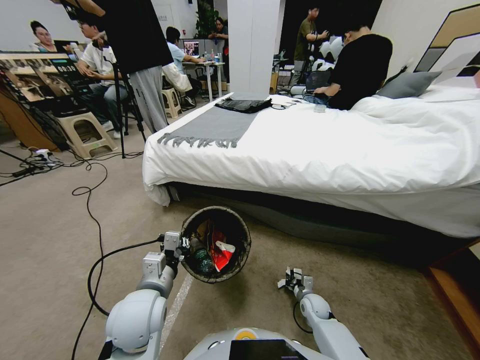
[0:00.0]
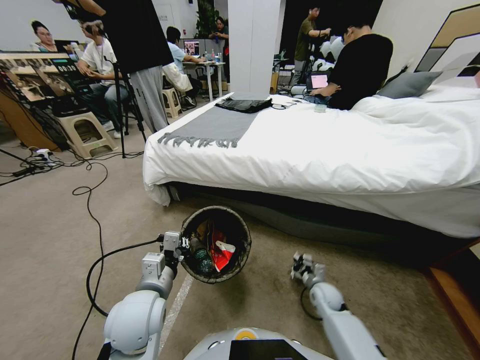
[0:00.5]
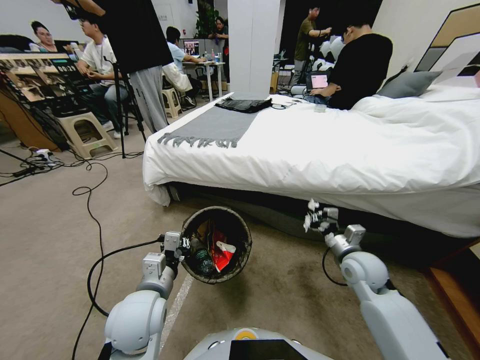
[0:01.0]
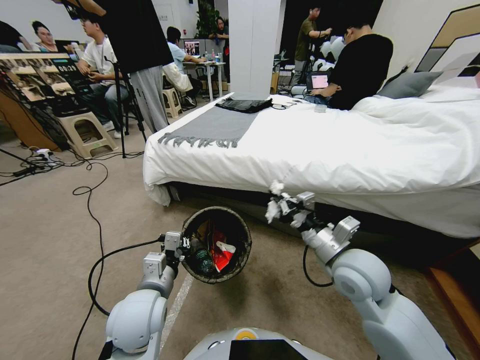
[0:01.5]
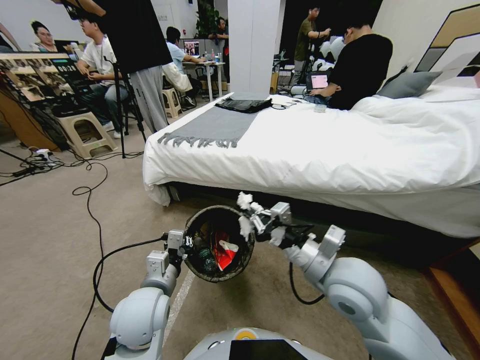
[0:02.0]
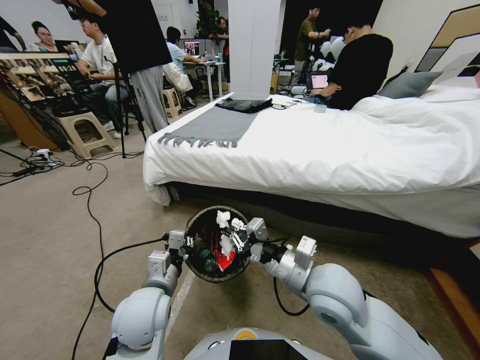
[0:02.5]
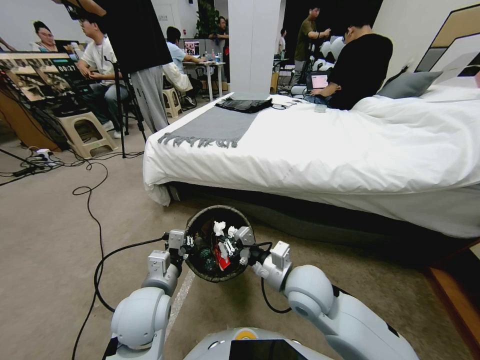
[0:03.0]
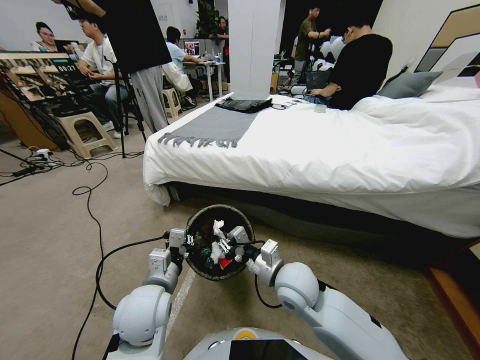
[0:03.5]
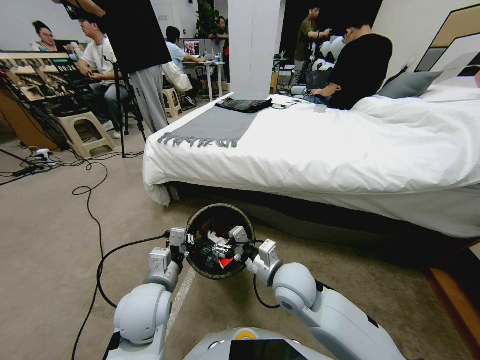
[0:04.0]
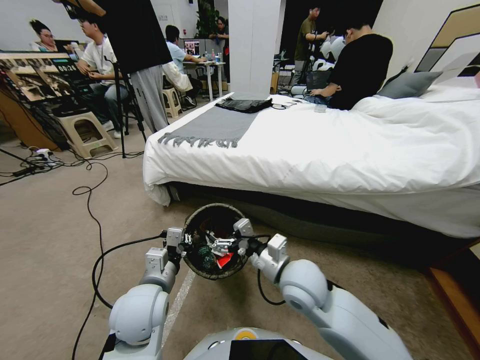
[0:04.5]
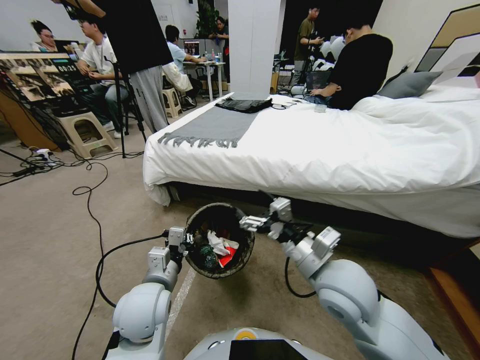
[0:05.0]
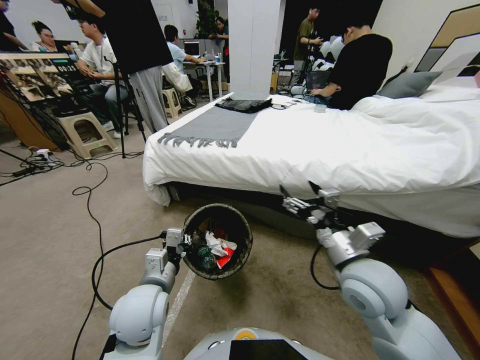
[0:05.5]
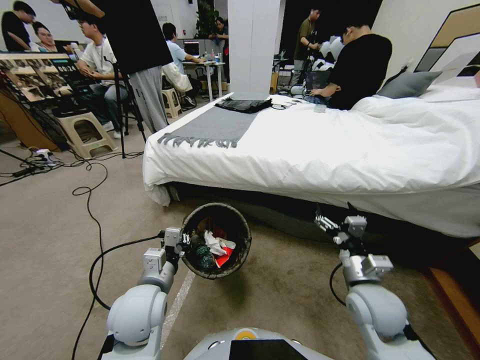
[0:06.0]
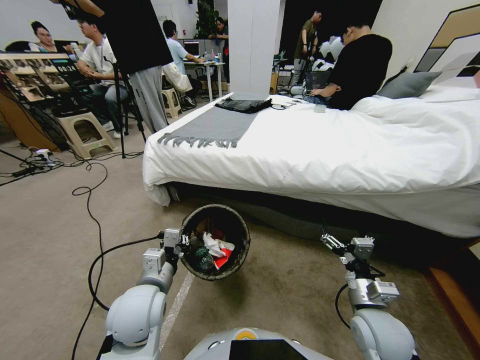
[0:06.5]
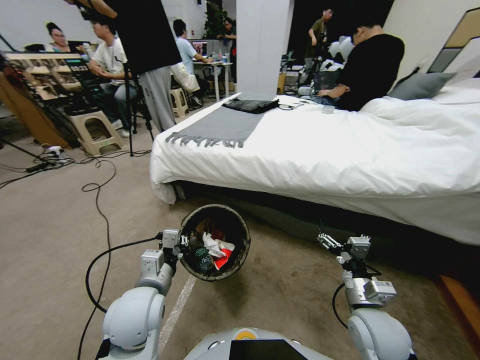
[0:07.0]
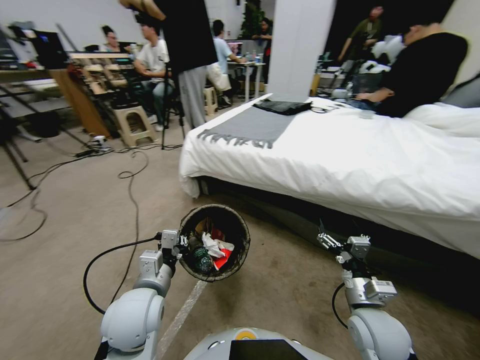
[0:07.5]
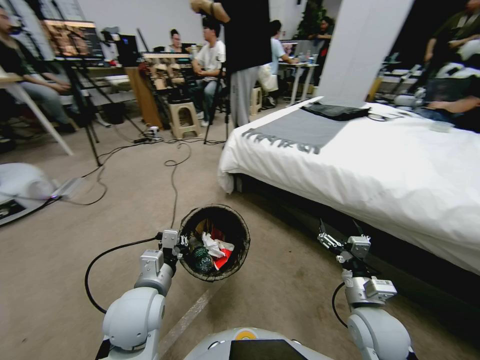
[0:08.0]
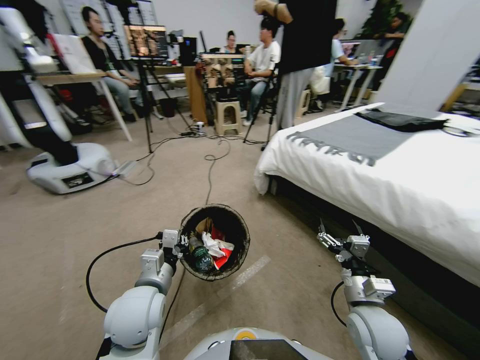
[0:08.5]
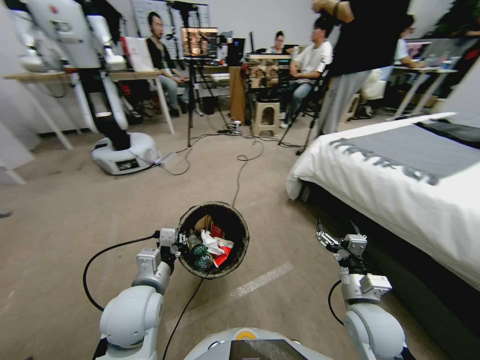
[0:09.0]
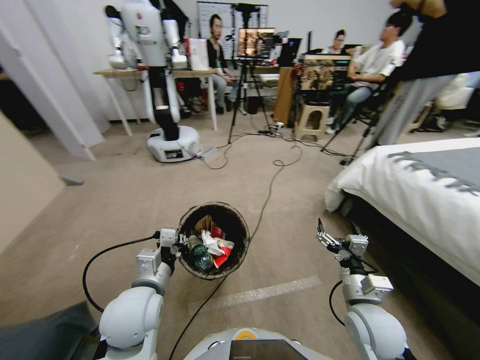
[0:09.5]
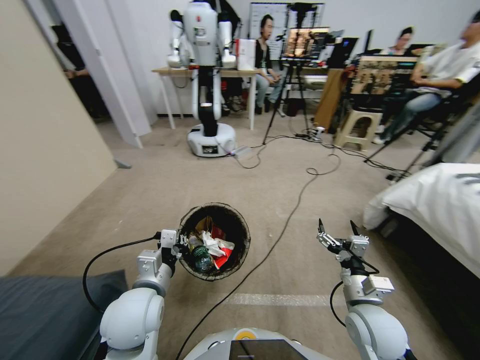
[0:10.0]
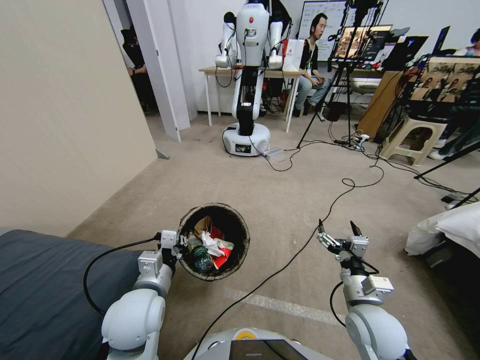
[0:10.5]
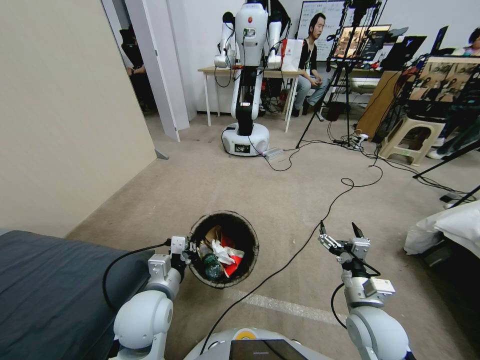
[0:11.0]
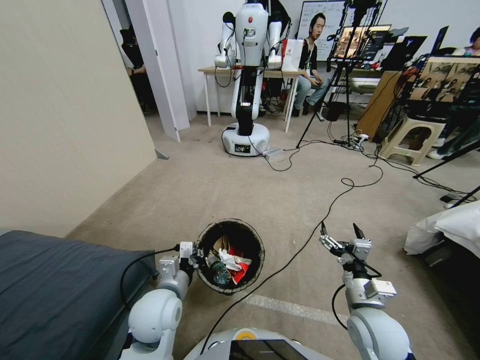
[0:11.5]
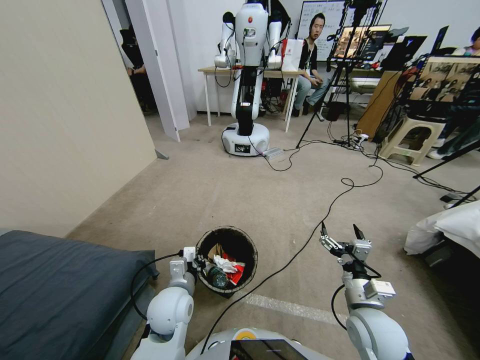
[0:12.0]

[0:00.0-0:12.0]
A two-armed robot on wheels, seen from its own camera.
Task of the whole recording: Pick up the trash bin, then pick up the garbage from the floor and place it into the trash bin.
0:00.0 to 0:02.0: The right gripper heads upward, covering approximately 40 cm.
0:02.0 to 0:04.0: The right gripper is displaced downward and to the left by about 10 cm, and opens up.
0:04.0 to 0:06.0: The right gripper travels to the right by some 15 cm.
0:10.0 to 0:12.0: The left gripper shifts roughly 10 cm downward.

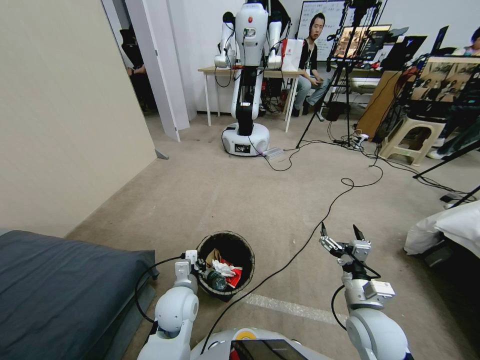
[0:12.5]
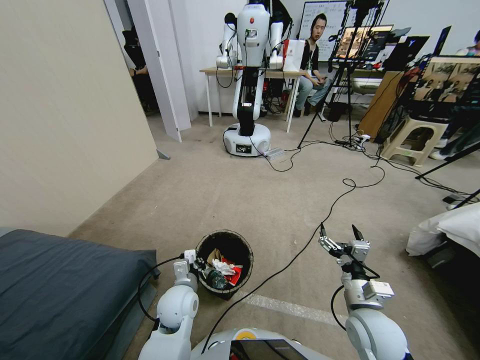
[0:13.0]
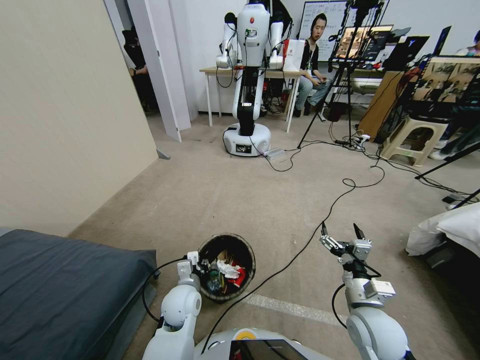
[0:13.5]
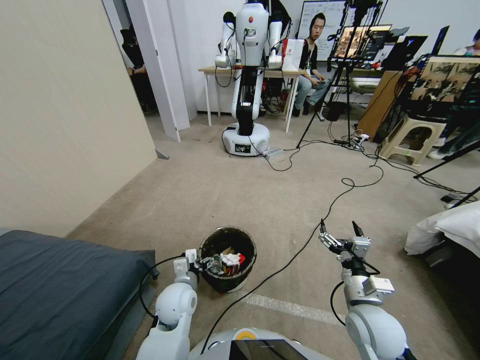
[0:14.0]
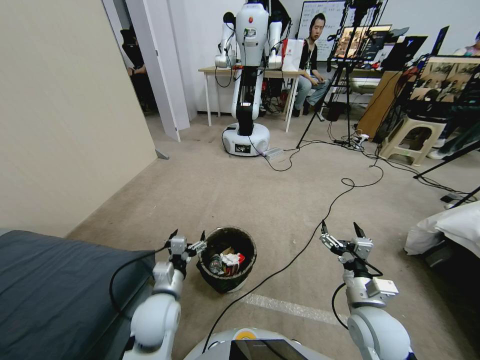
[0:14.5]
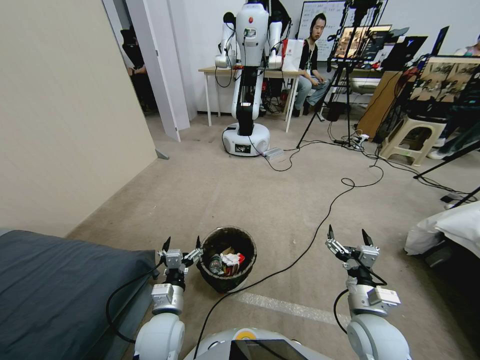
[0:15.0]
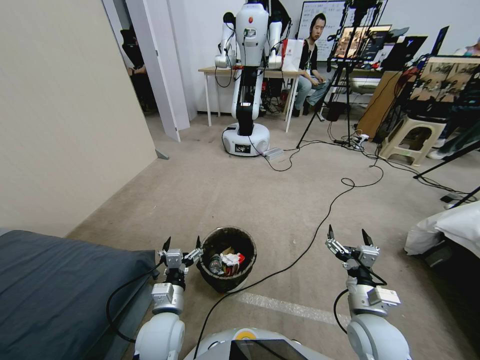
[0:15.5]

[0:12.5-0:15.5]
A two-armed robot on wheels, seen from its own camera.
Task of the whole recording: Pick up the trash bin, then pick up the garbage from the floor and place it into the trash bin.
0:12.5 to 0:14.0: The left gripper opens up.
0:14.0 to 0:15.5: The left gripper heads backward, covering some 5 cm.

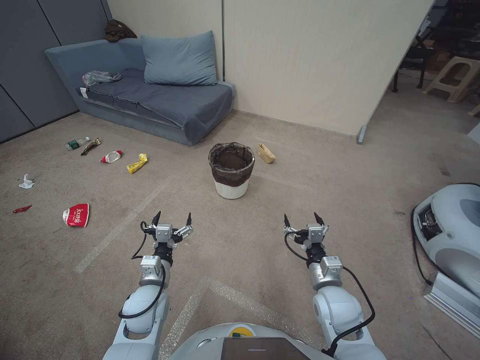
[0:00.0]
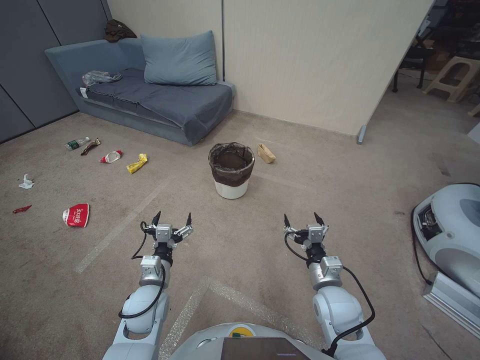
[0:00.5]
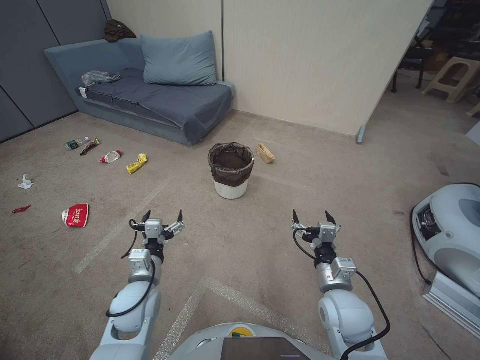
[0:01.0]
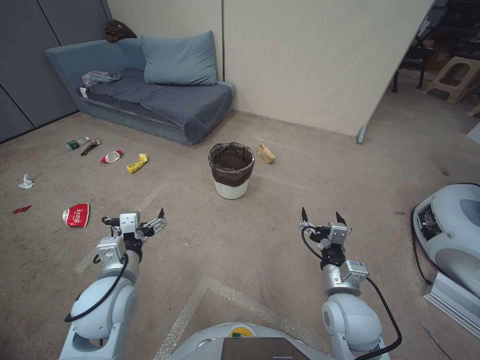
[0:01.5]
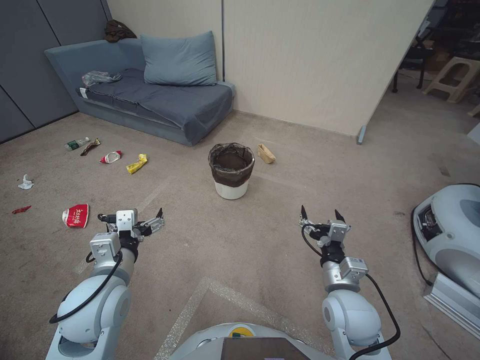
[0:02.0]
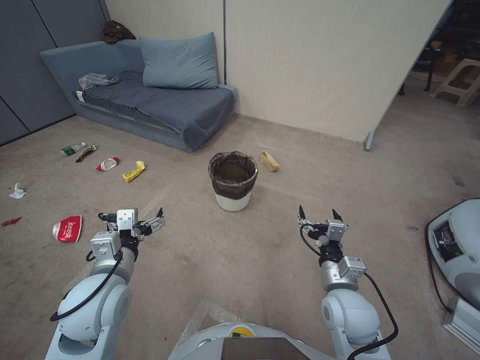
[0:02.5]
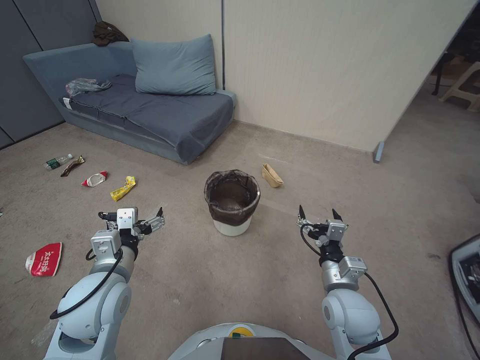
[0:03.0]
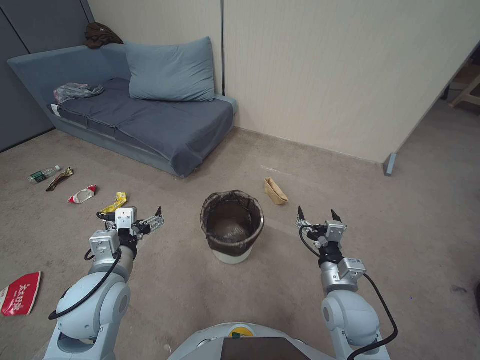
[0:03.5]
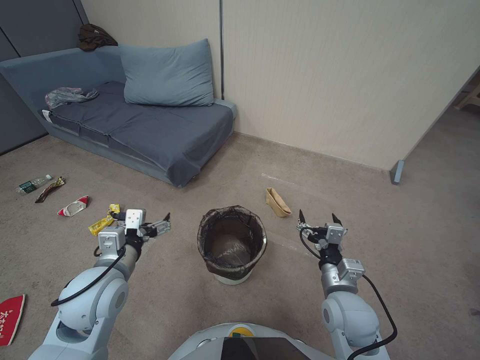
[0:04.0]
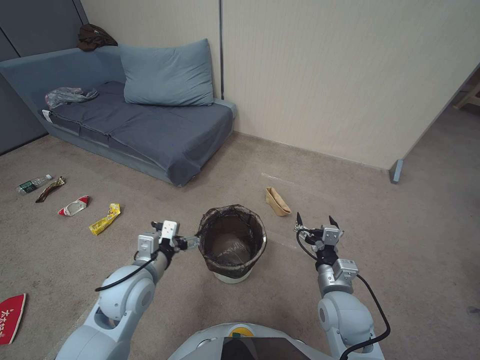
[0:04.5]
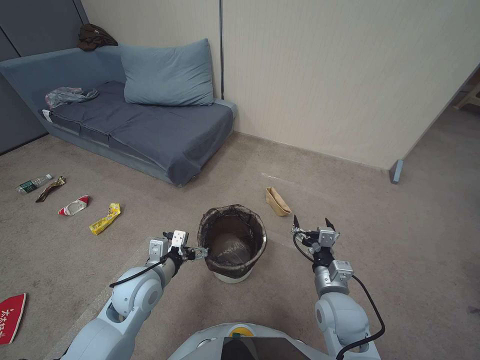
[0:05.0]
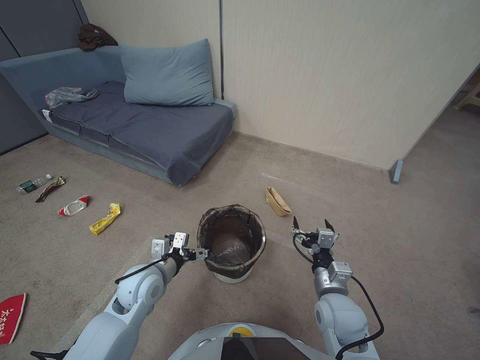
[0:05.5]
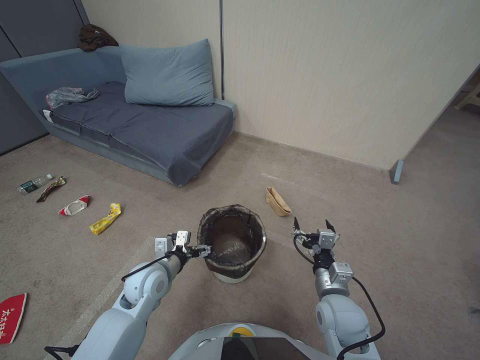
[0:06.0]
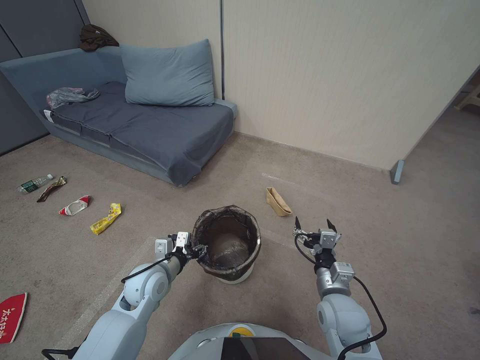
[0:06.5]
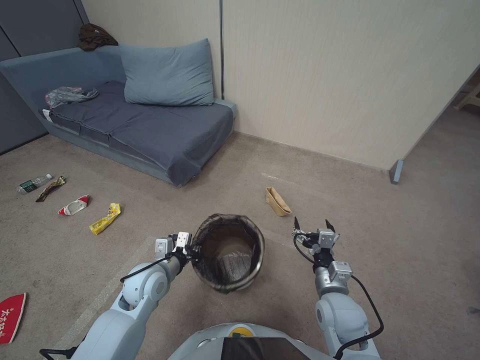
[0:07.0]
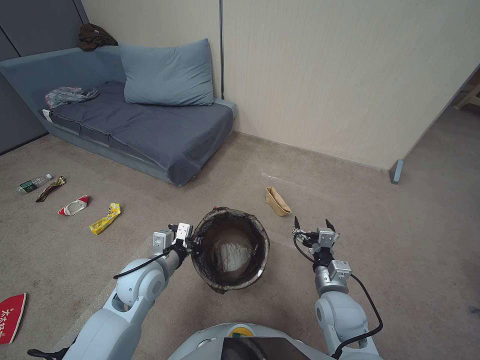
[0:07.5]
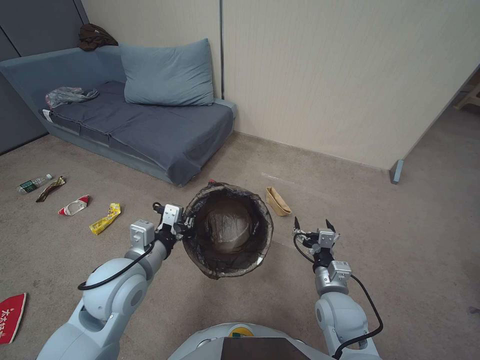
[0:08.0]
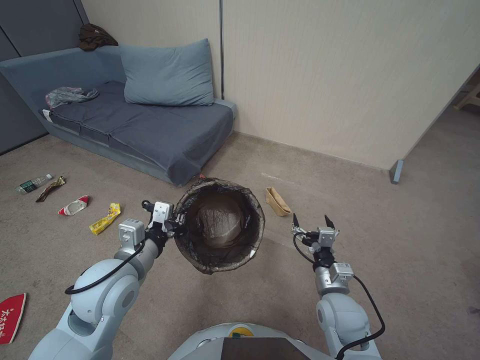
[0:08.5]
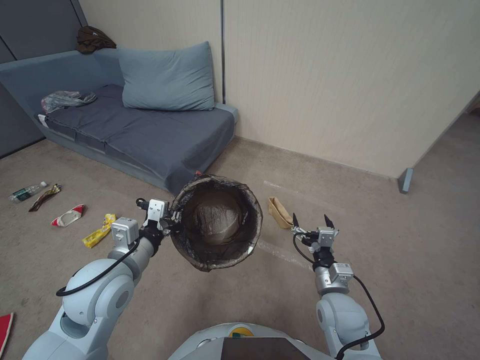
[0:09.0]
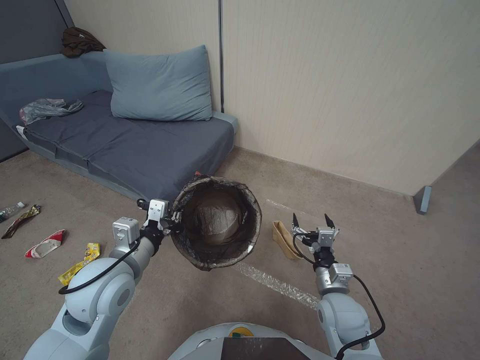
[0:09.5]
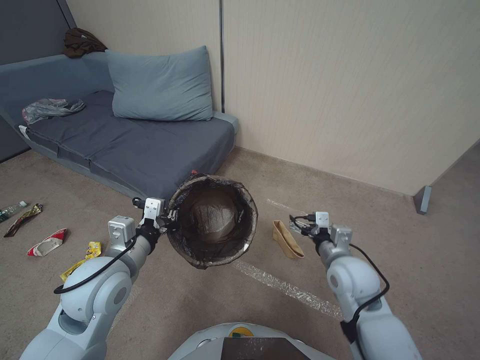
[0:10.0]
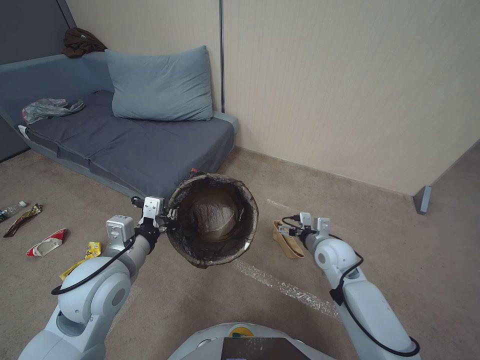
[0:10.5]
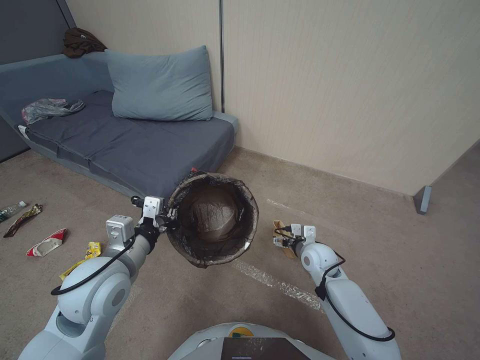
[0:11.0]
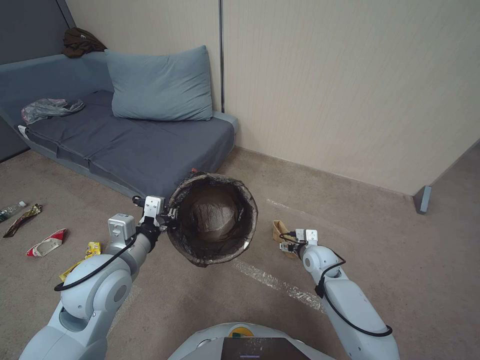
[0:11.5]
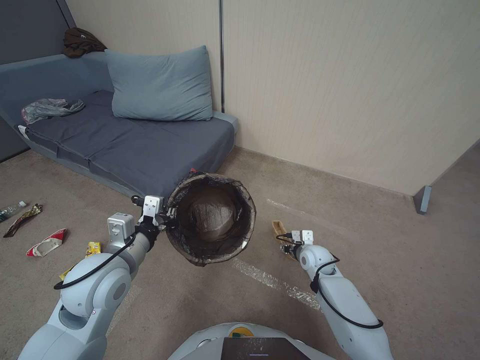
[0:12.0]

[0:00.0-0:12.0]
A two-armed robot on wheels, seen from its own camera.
Task of the whole recording: Pick up the trash bin, then pick up the garbage from the floor and place it into the trash bin.
0:04.0 to 0:06.0: The left gripper goes roughly 15 cm downward and forward.
0:06.0 to 0:08.0: The left gripper travels upward by about 10 cm, and closes up.
0:10.0 to 0:12.0: The right gripper heads forward and downward, covering approximately 15 cm, and closes.
